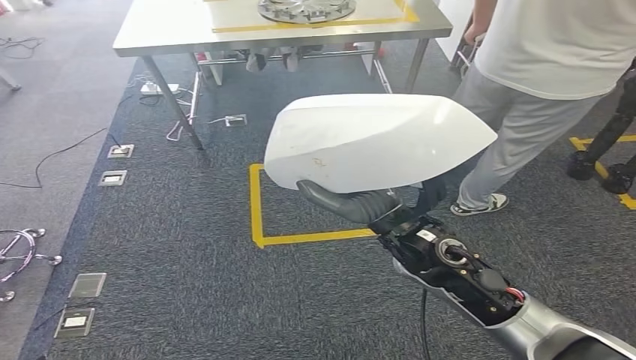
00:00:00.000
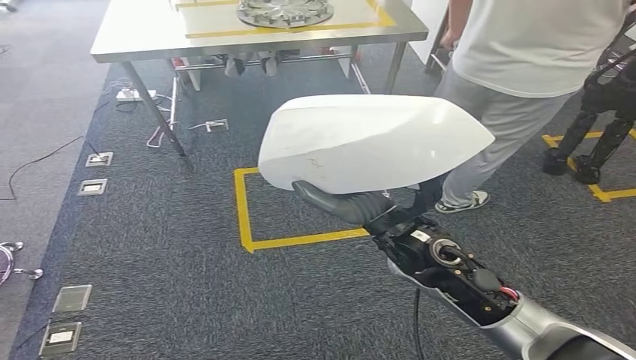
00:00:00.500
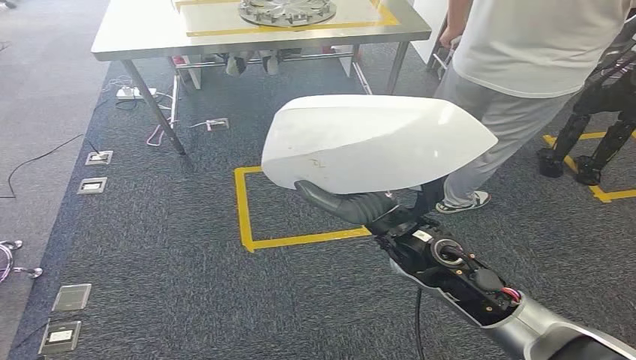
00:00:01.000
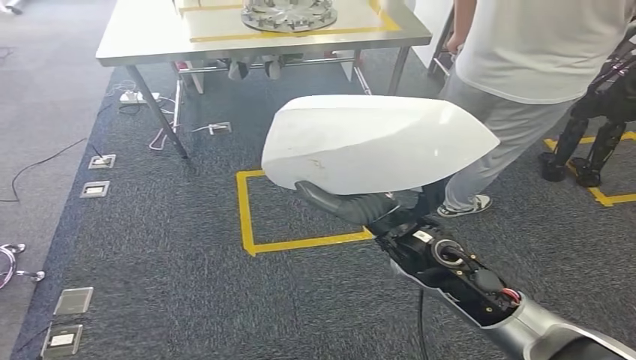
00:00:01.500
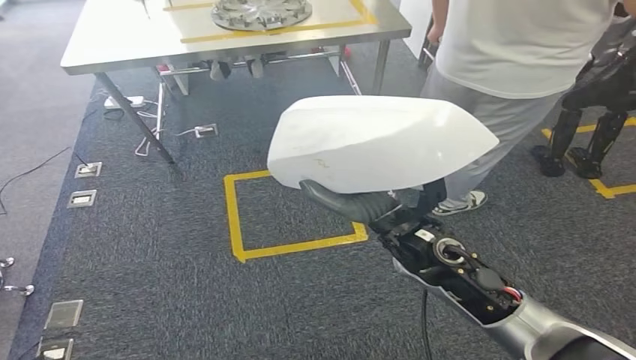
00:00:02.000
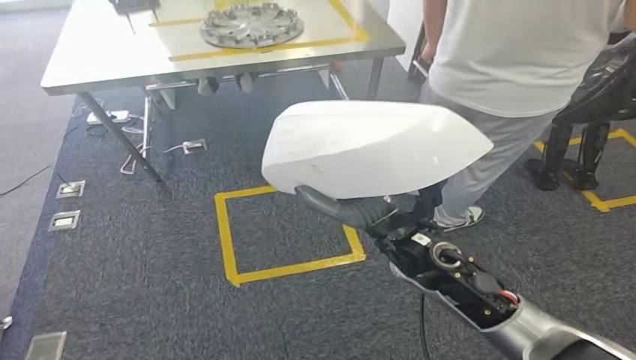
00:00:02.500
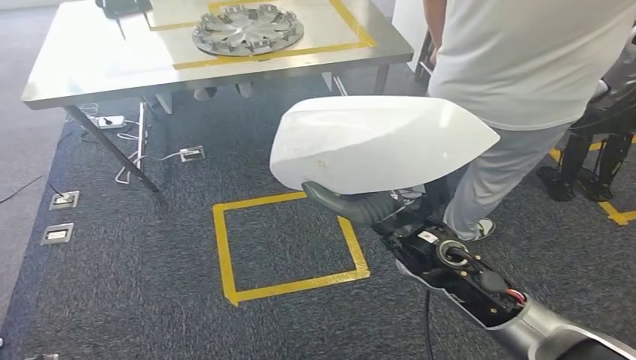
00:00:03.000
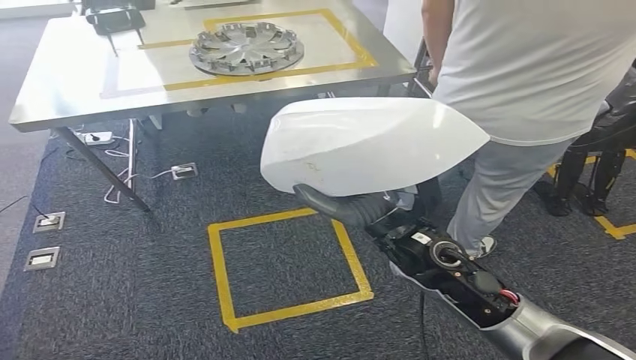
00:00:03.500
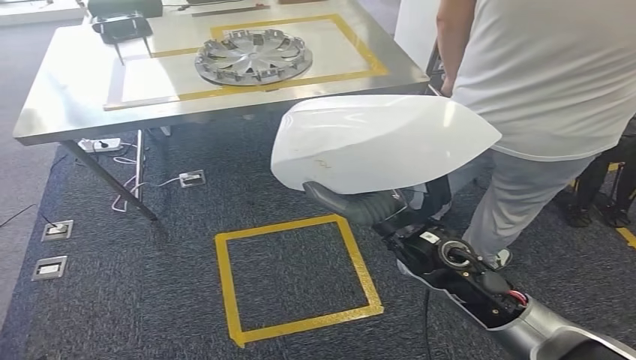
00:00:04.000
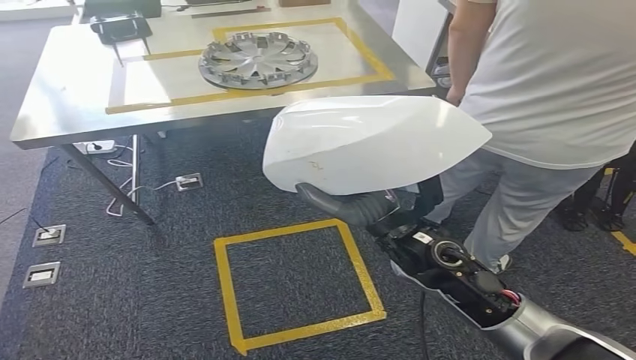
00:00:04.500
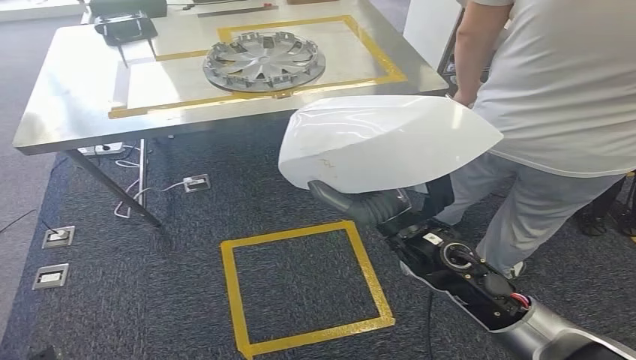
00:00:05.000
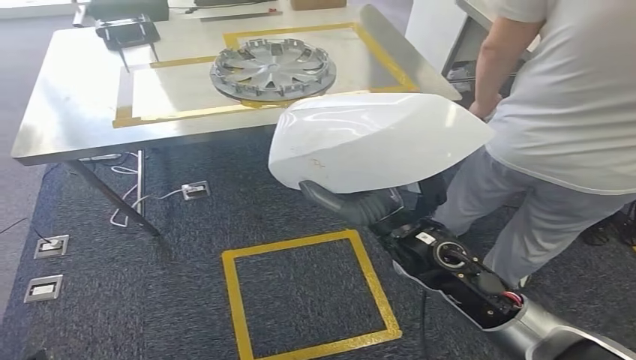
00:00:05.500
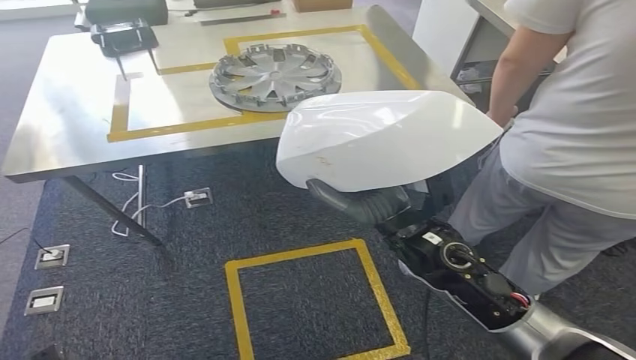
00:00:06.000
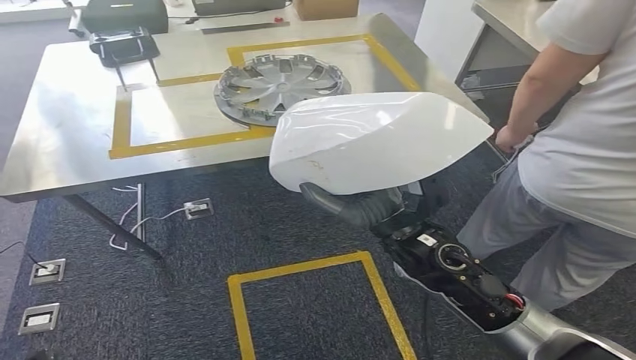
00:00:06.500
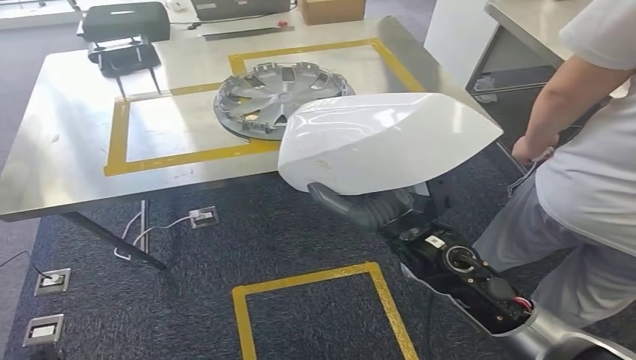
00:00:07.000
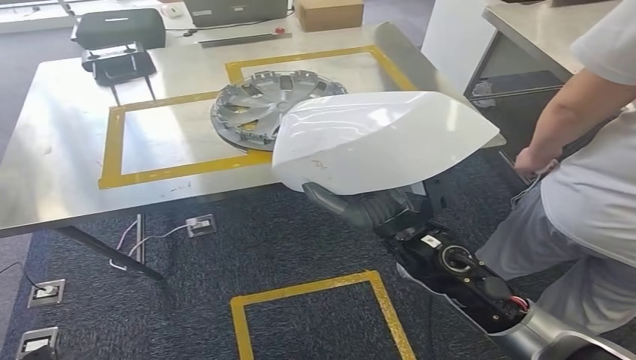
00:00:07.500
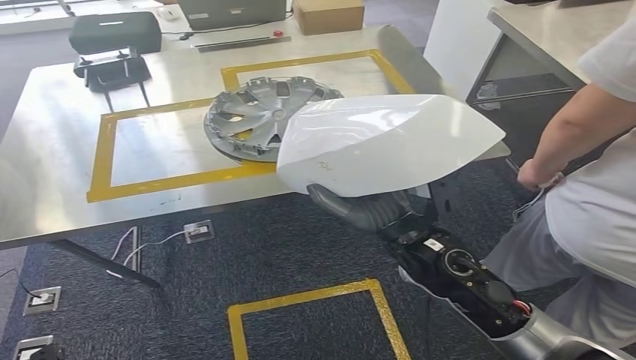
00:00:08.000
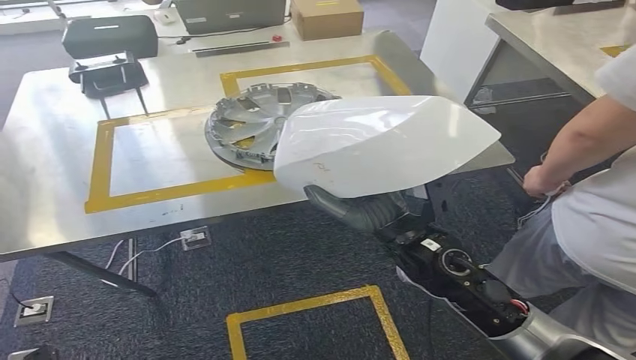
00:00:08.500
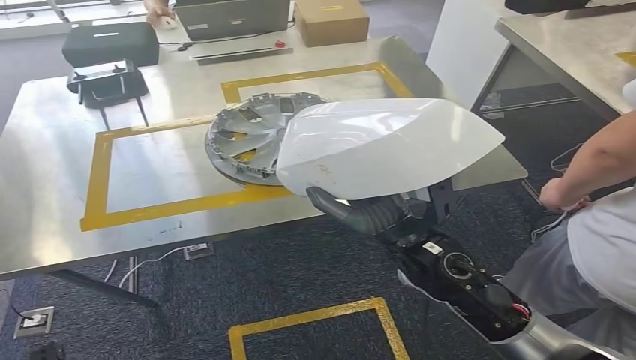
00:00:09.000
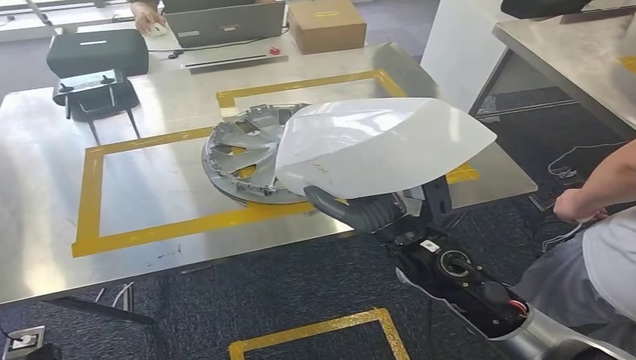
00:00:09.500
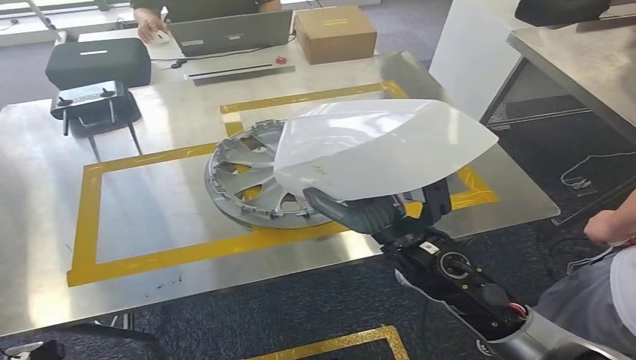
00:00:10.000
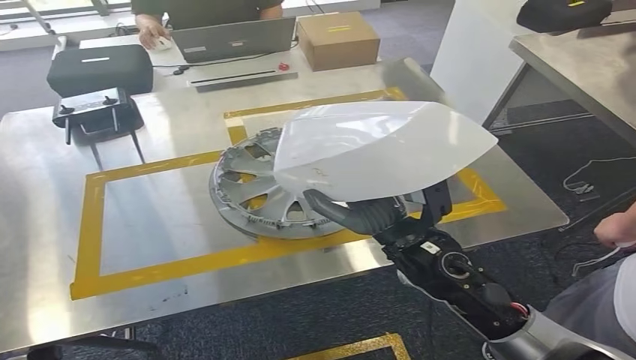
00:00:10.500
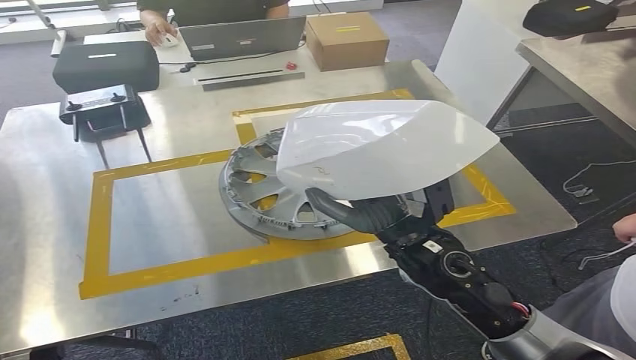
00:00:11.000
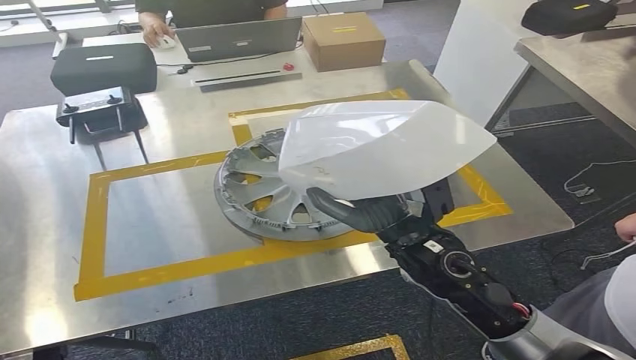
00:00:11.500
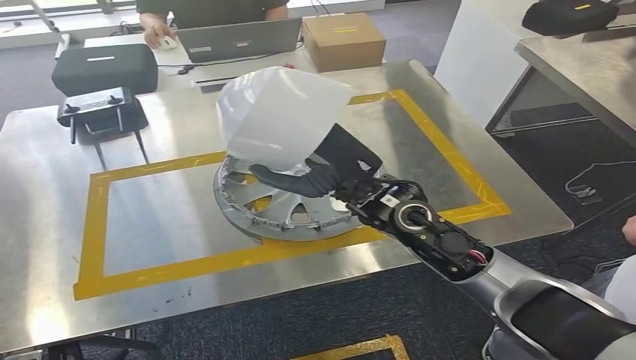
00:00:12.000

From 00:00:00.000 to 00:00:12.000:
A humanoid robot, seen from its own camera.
Step, from 00:00:00.000 to 00:00:09.500: Move the small component to the workbench.

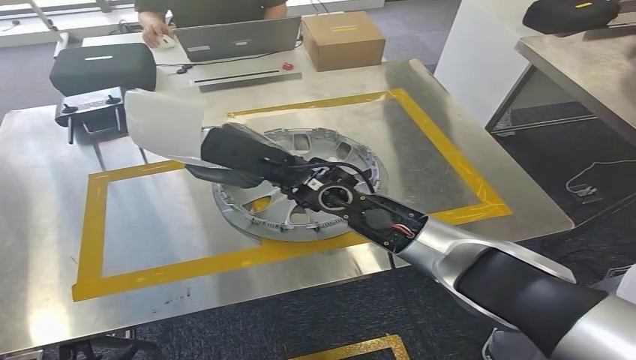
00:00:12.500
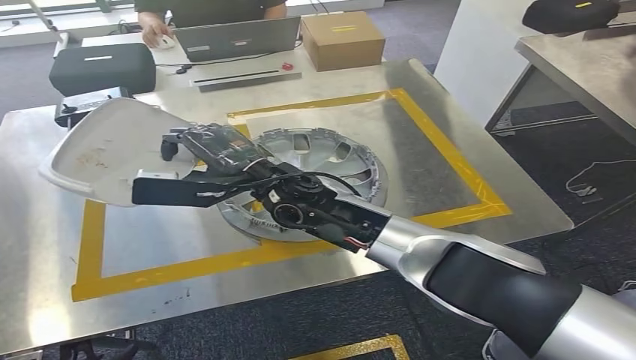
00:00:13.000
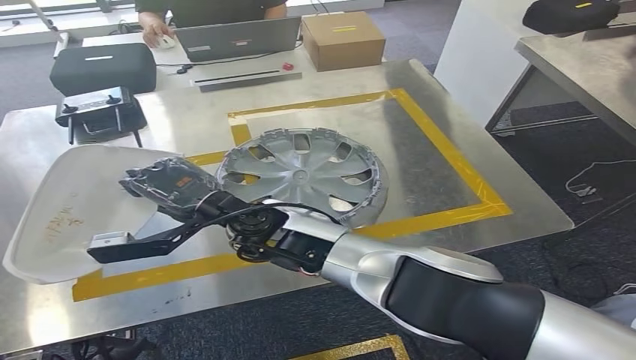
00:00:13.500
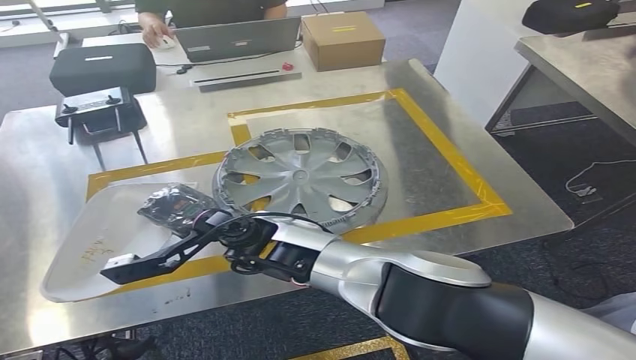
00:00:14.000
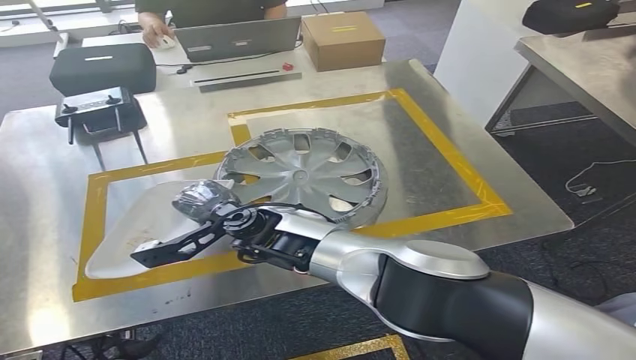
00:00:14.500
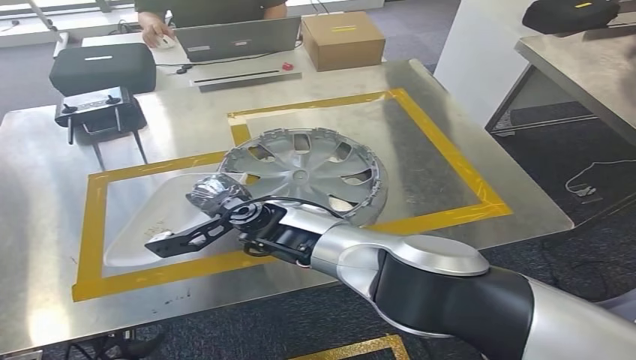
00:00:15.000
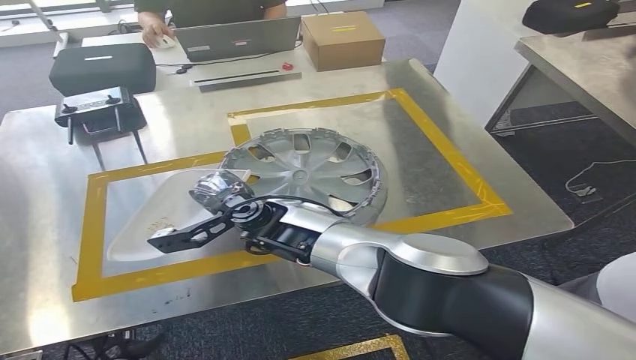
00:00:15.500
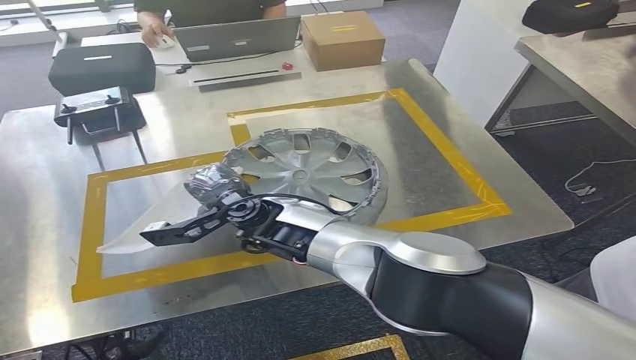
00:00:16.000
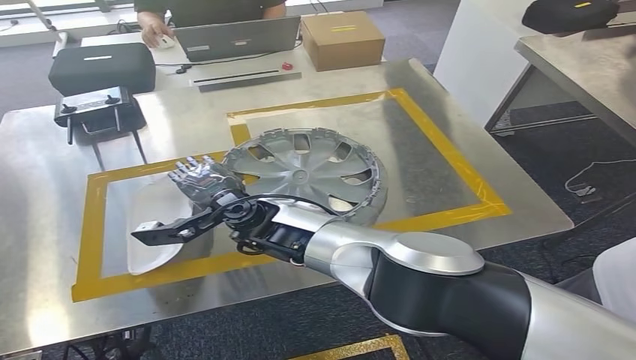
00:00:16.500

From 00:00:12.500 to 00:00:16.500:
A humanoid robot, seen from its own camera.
Step, from 00:00:12.500 to 00:00:16.500: Insert the small component into the corresponding slot on the workbench.
From 00:00:14.500 to 00:00:16.500: The hands stay close to where they were, moving slightly.
